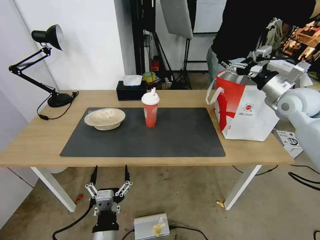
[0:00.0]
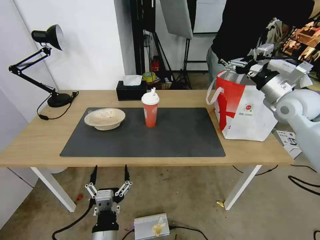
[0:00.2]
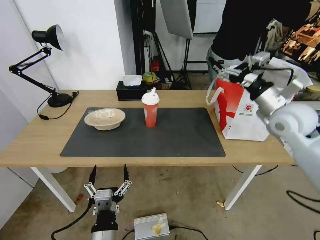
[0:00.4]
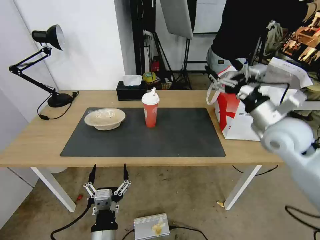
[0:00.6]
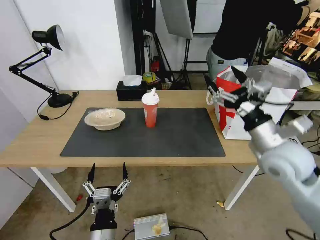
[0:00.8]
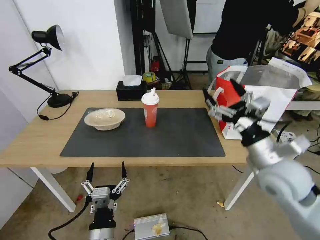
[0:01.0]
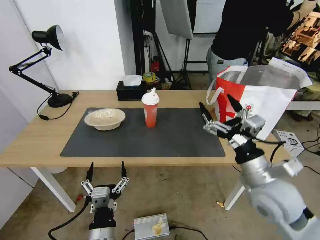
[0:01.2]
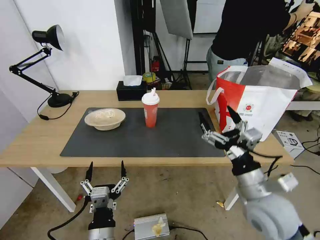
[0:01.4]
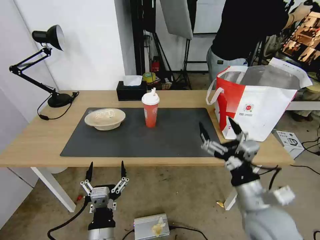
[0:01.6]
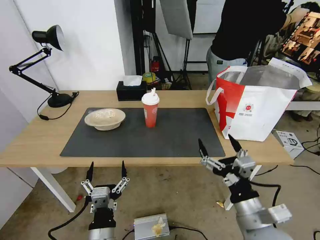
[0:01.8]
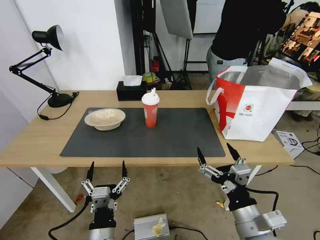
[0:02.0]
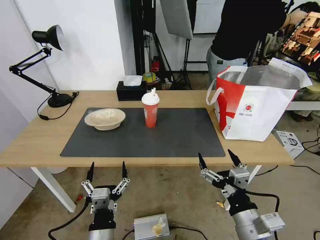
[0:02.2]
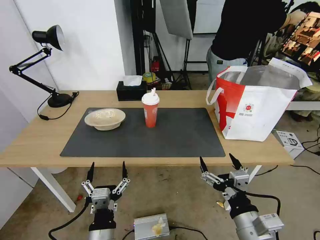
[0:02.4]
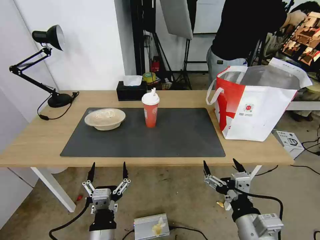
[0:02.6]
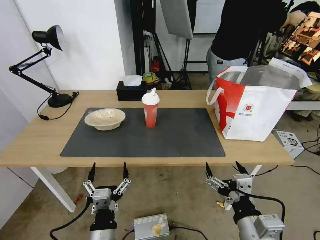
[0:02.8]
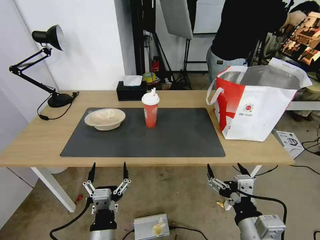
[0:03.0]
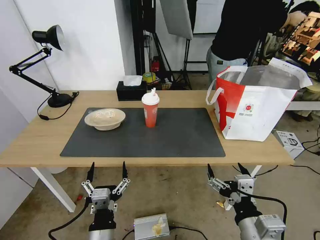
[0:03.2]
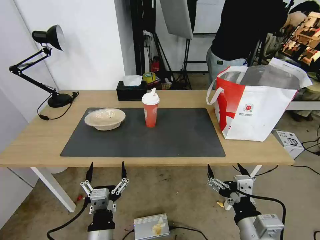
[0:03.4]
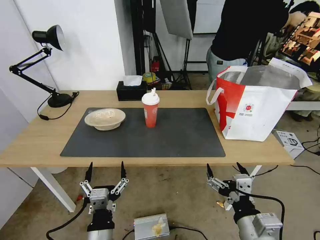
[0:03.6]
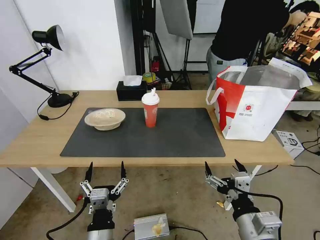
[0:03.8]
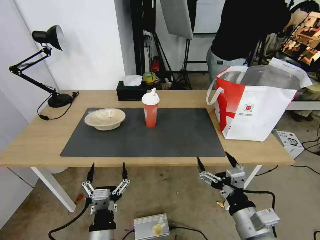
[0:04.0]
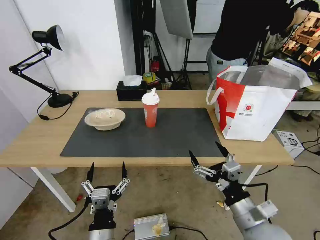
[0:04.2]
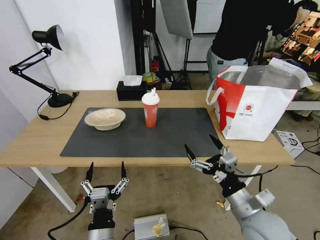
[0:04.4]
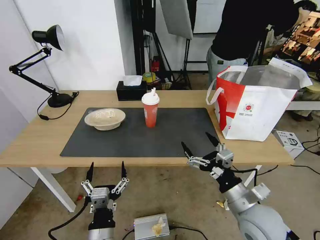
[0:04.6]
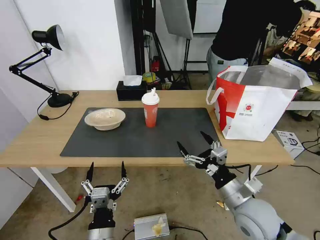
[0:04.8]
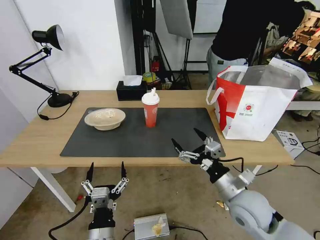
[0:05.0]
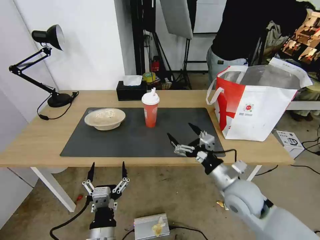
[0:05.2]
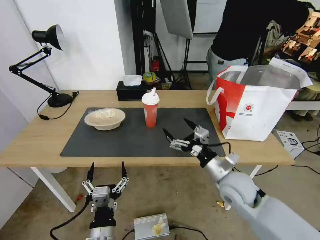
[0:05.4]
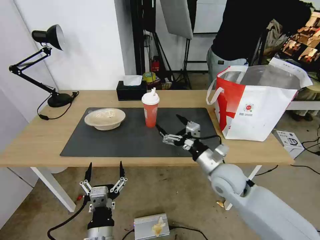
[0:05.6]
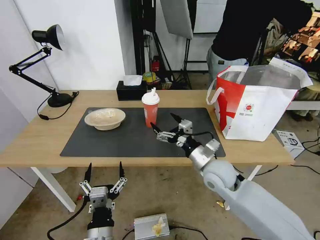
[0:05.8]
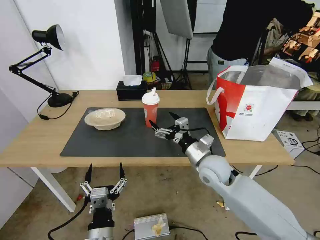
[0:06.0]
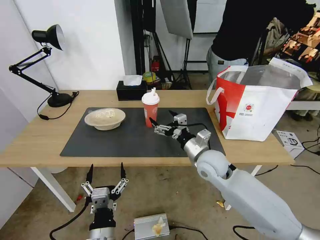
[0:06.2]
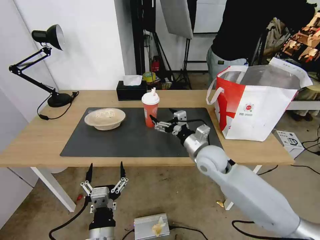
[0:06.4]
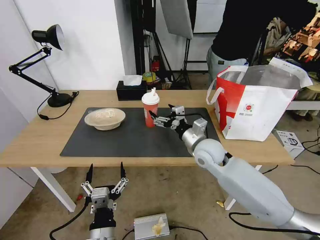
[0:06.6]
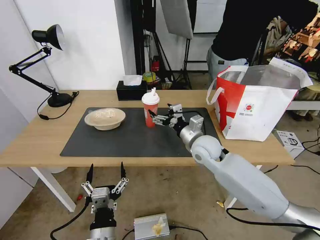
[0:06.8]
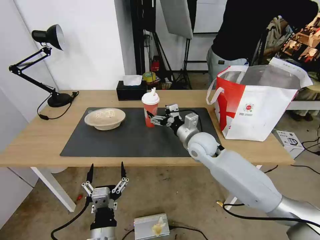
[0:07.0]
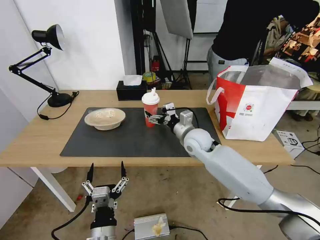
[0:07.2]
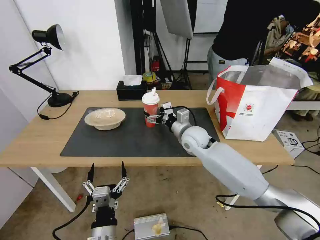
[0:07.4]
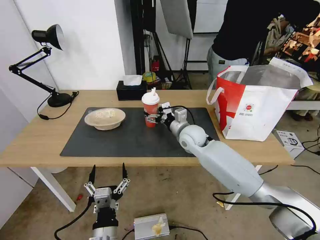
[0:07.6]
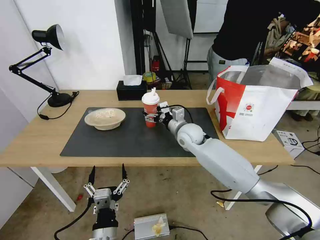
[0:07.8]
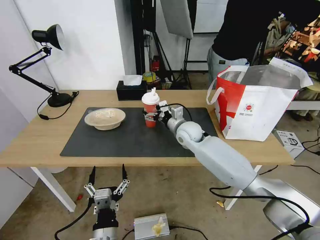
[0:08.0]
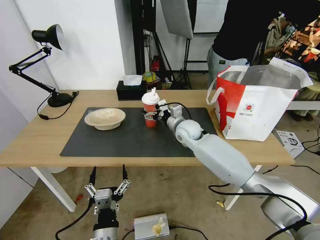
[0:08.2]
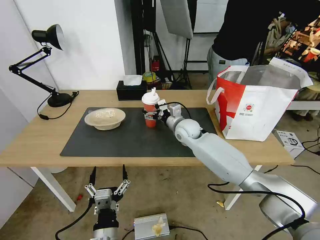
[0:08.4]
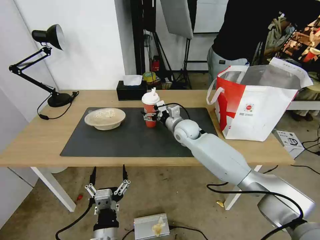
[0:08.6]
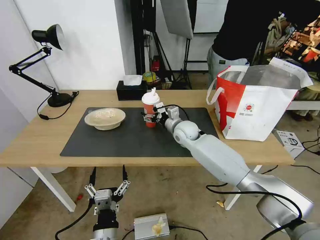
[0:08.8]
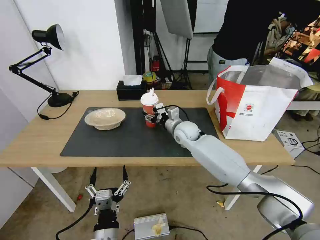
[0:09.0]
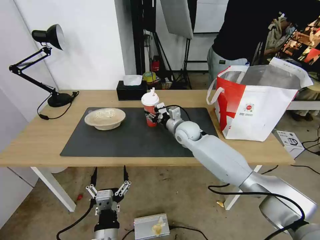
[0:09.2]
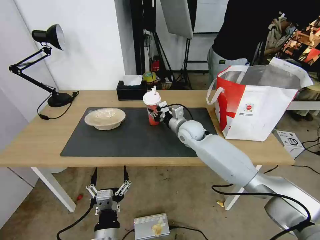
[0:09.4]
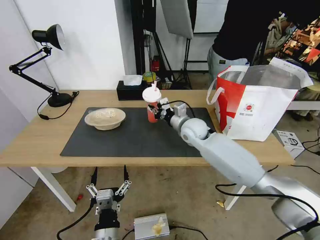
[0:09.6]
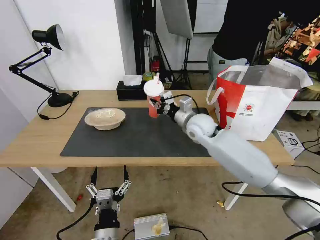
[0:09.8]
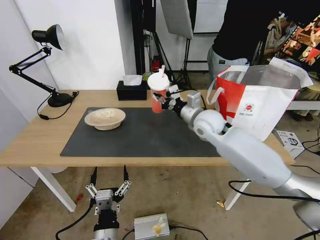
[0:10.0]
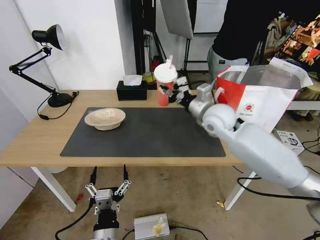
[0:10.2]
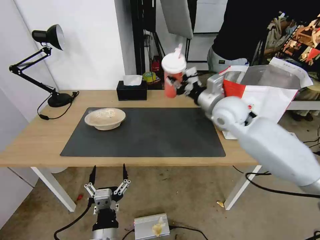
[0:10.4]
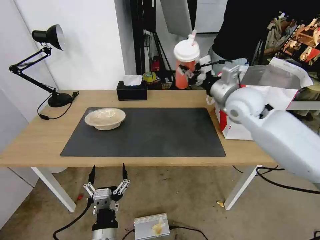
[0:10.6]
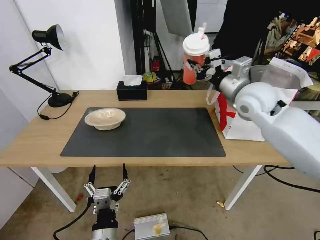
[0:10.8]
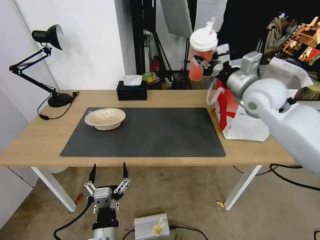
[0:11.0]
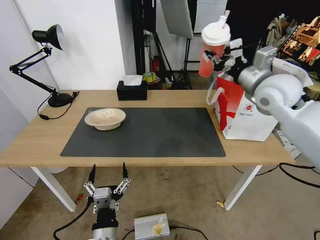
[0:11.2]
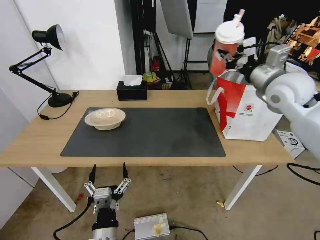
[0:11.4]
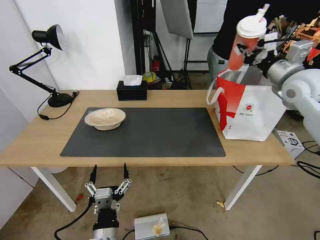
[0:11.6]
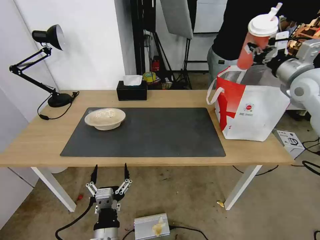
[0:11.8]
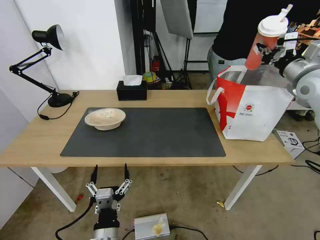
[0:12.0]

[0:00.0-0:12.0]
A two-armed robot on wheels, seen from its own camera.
Task of the whole recording: Pick up the trash from the table and place it into the takeout bag.
0:00.0 to 0:01.6: The right gripper heads backward, to the left and downward, covering about 35 cm.
0:01.6 to 0:03.0: The right gripper shifts roughly 10 cm backward.
0:03.0 to 0:04.4: The right gripper is displaced forward by some 10 cm.
0:04.4 to 0:06.0: The right gripper goes approximately 20 cm forward and to the left.
0:06.0 to 0:07.6: The right gripper travels forward by approximately 15 cm.
0:07.6 to 0:09.0: The right gripper closes.
0:09.0 to 0:10.4: The right gripper moves upward and to the right, approximately 20 cm, and closes up.
0:10.4 to 0:12.0: The right gripper moves to the right, approximately 20 cm.

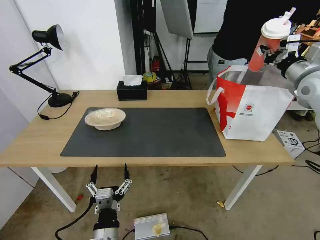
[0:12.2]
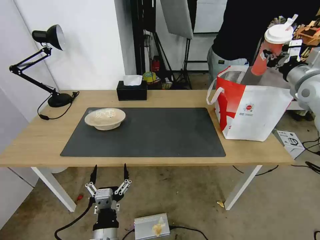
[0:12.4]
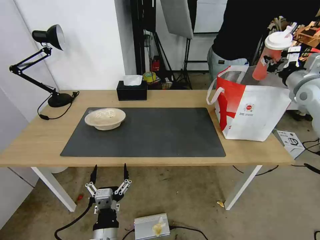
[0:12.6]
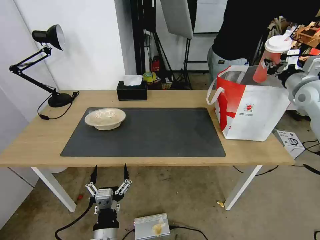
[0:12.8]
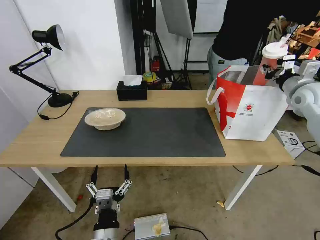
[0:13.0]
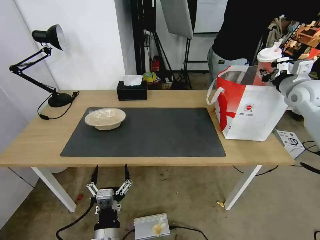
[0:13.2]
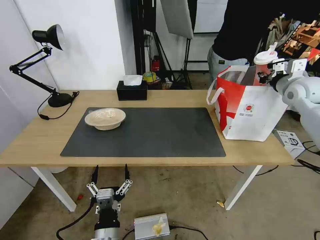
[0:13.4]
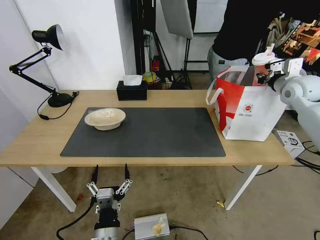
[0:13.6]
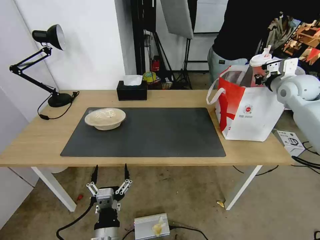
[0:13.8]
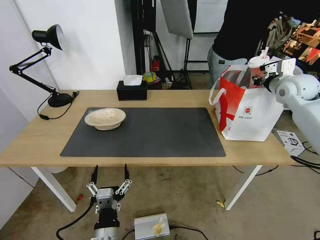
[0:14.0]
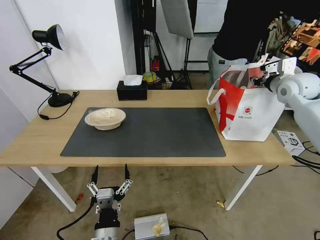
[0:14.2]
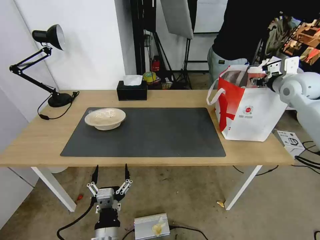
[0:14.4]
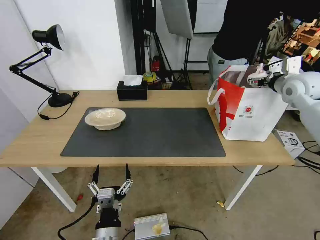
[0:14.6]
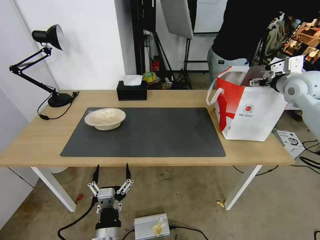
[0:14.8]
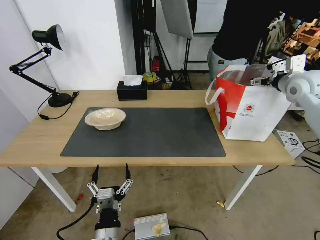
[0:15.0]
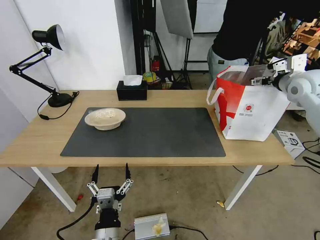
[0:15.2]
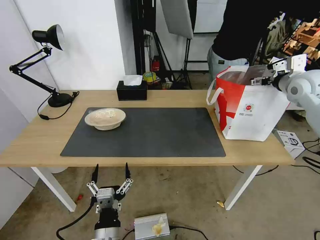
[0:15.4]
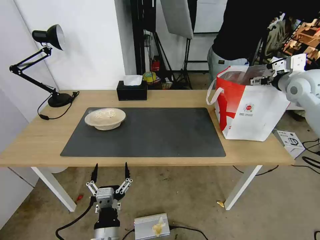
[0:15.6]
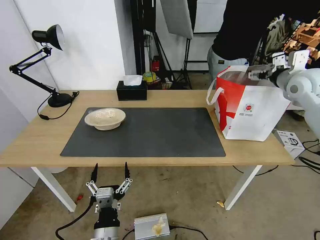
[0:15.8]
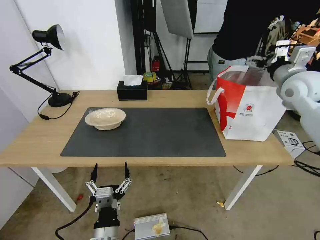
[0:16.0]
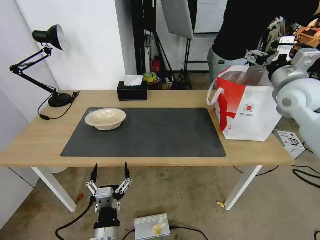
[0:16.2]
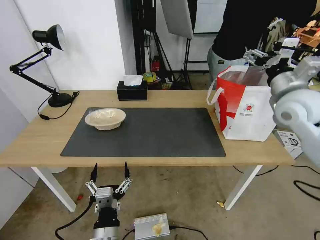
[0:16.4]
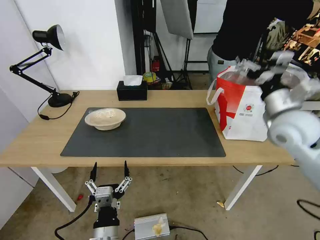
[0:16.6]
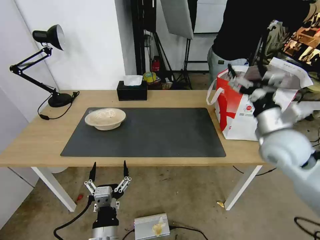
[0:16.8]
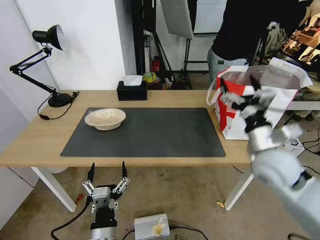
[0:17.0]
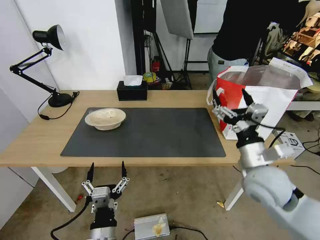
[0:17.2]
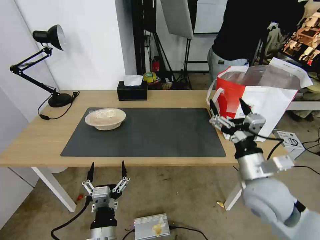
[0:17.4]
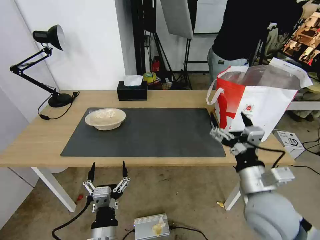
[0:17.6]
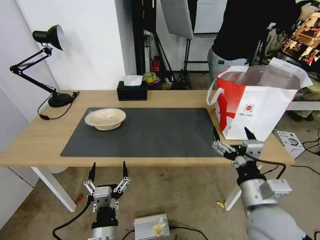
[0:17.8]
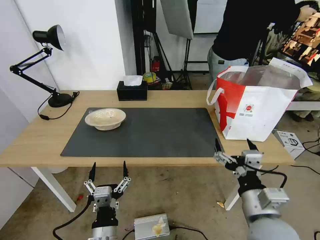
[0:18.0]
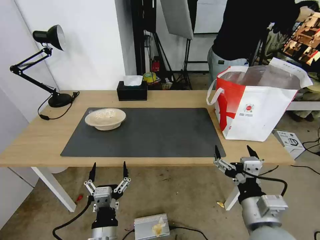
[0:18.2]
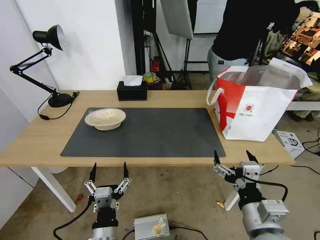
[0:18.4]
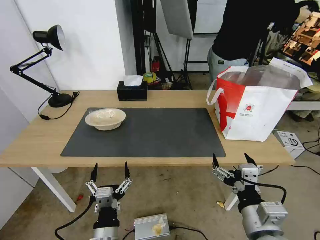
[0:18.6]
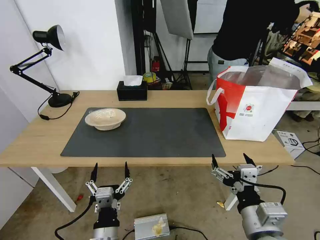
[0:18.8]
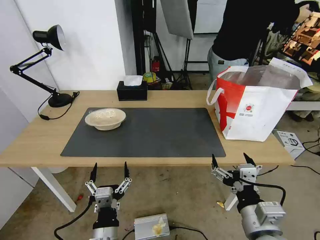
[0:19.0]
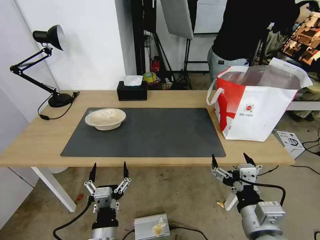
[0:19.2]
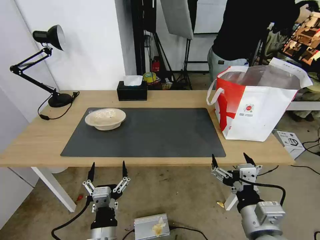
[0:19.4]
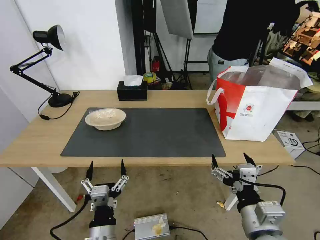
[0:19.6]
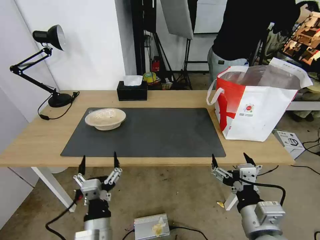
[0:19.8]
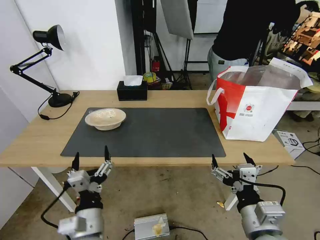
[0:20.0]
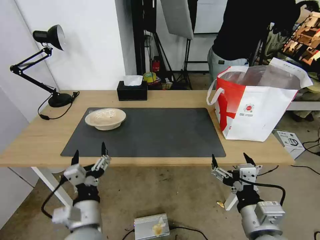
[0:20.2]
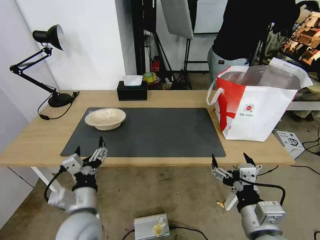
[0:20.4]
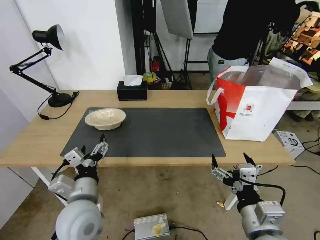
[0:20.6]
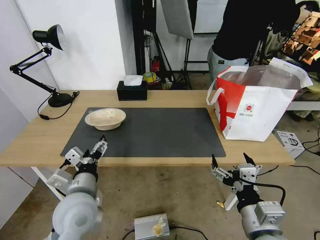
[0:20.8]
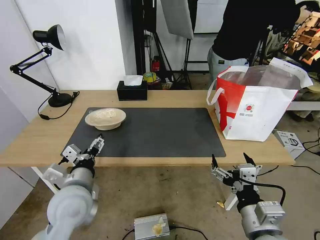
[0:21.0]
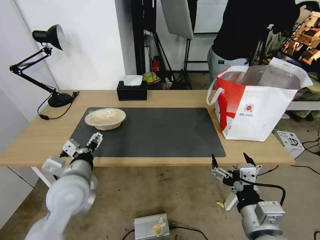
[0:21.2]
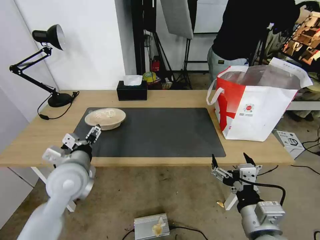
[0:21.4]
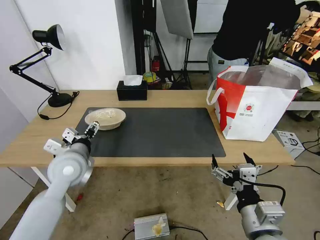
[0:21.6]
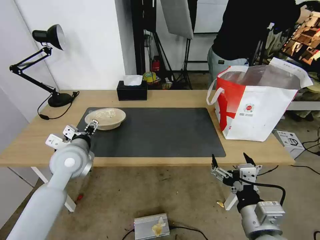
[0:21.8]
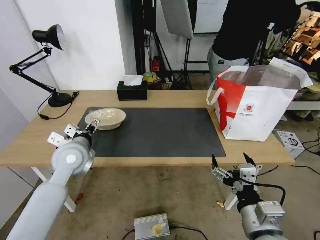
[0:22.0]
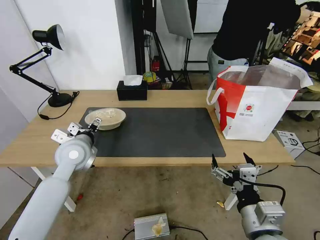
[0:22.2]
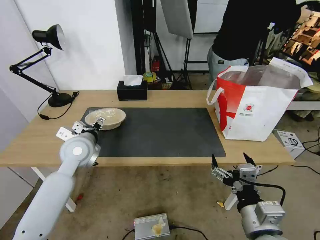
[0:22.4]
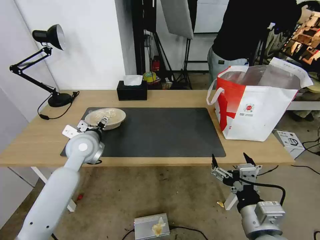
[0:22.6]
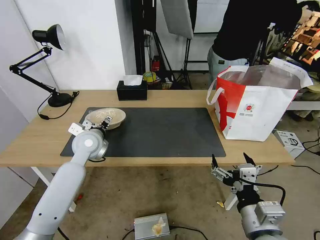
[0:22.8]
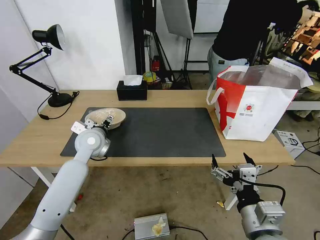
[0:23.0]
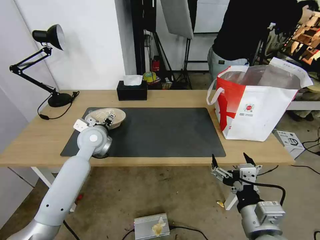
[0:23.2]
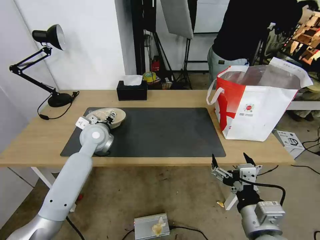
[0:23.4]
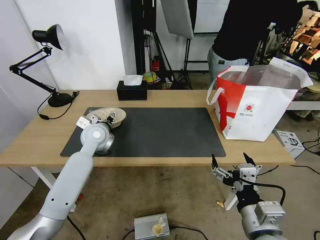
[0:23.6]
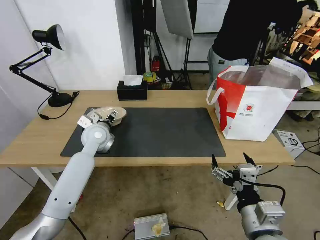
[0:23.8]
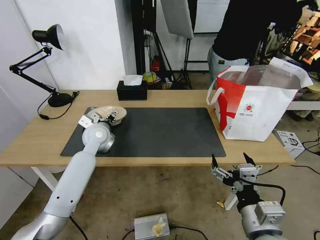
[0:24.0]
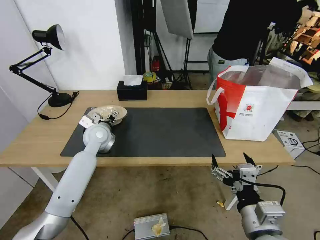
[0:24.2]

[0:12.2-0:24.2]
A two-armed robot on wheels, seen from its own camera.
Task of the whole recording: Pick up the trash from the table and place it into the takeout bag.
0:12.2 to 0:13.8: The right gripper heads forward, covering approximately 5 cm.
0:13.8 to 0:15.2: The right gripper opens.
0:15.2 to 0:16.6: The right gripper heads backward and to the left, covering some 15 cm.
0:16.6 to 0:18.2: The right gripper is displaced backward, downward and to the left by some 30 cm.
0:18.2 to 0:19.8: The grippers move only a little.
0:19.8 to 0:21.2: The left gripper heads forward, upward and to the left, covering some 20 cm.
0:21.2 to 0:22.6: The left gripper heads forward, covering roughly 15 cm.
0:22.6 to 0:24.2: The left gripper moves forward, about 5 cm.
